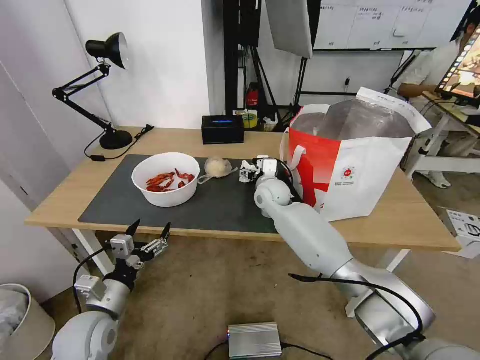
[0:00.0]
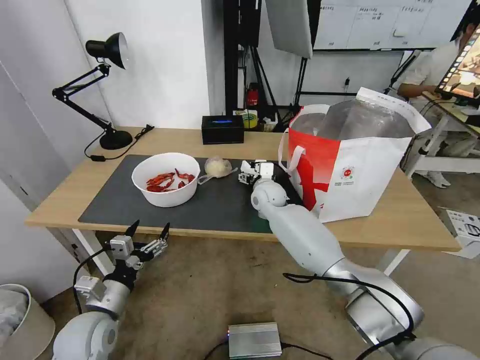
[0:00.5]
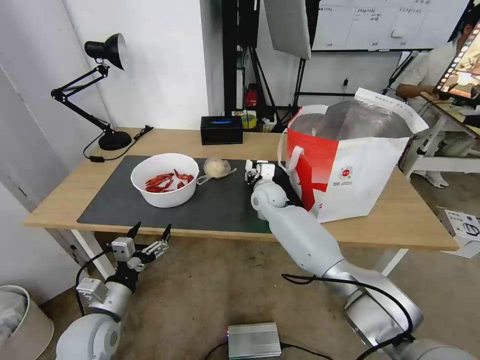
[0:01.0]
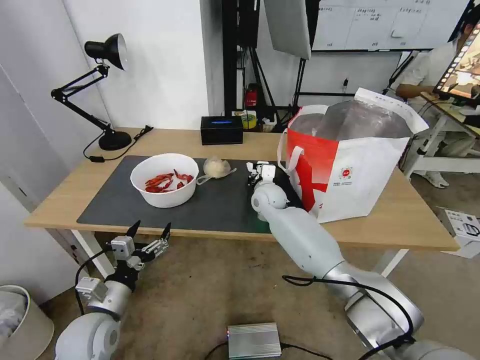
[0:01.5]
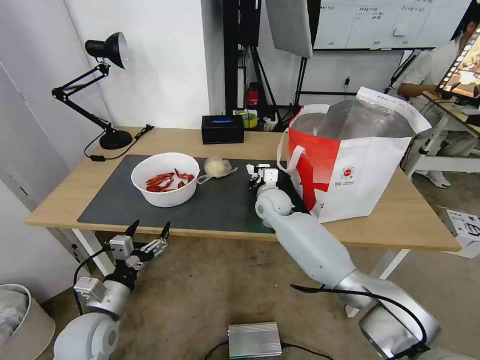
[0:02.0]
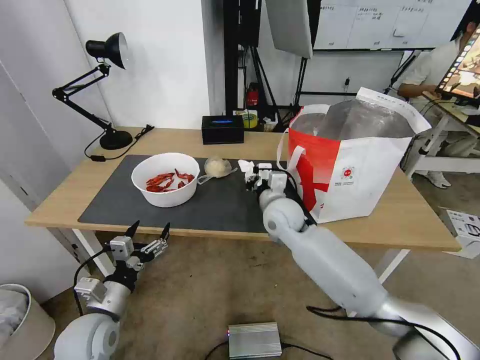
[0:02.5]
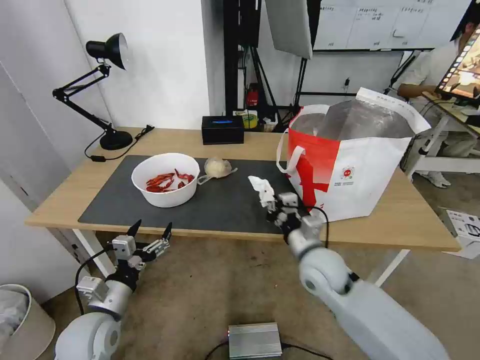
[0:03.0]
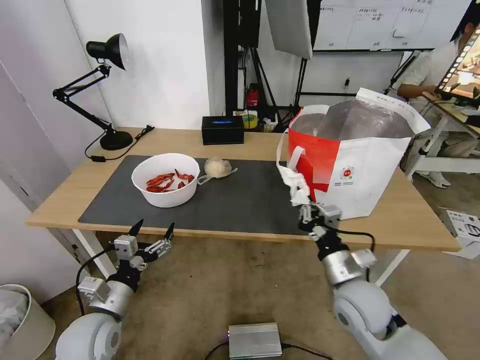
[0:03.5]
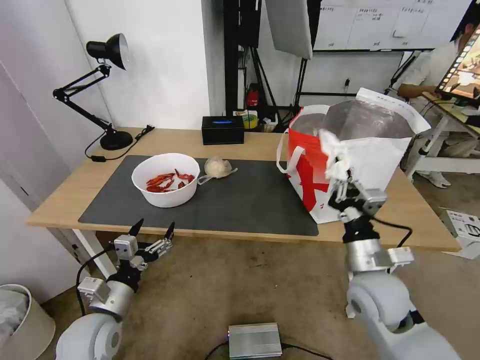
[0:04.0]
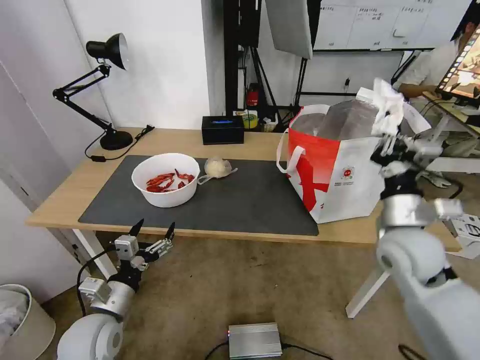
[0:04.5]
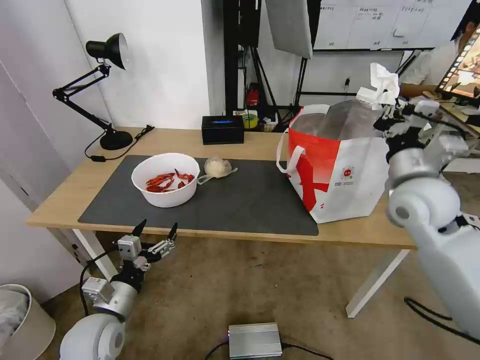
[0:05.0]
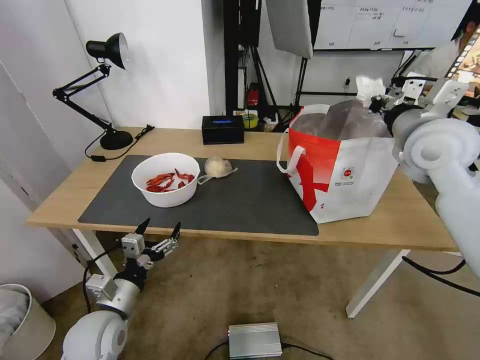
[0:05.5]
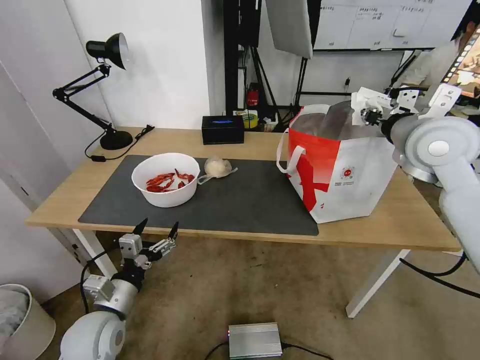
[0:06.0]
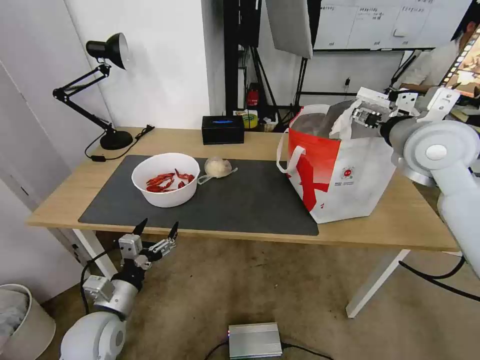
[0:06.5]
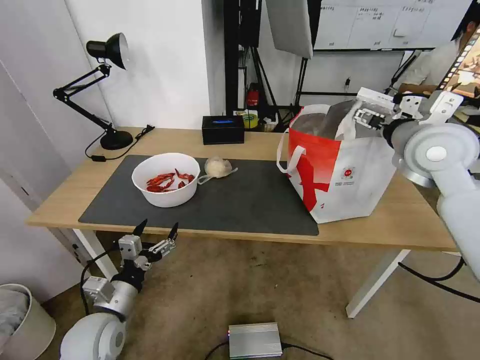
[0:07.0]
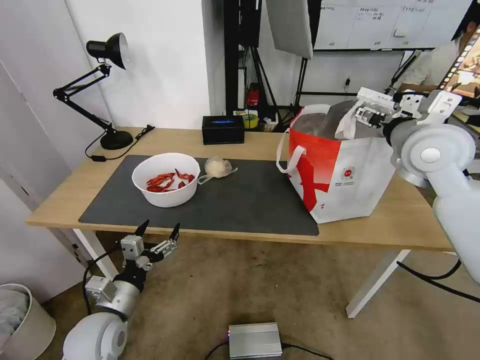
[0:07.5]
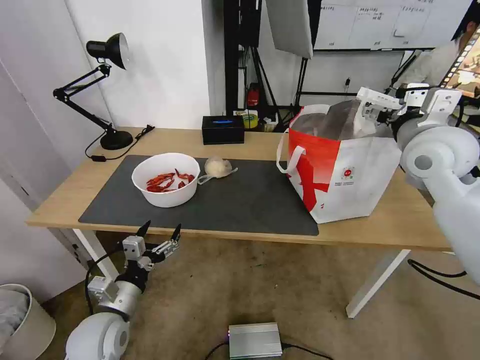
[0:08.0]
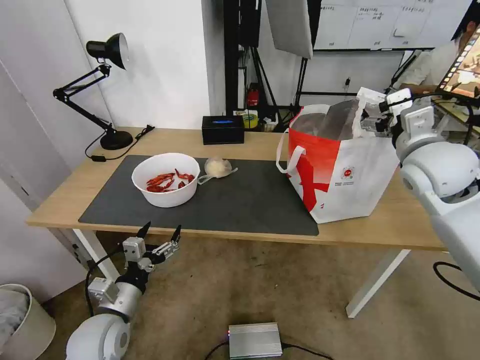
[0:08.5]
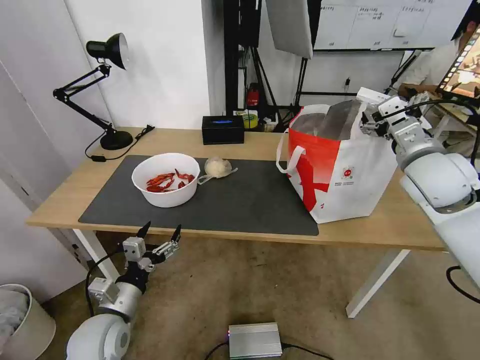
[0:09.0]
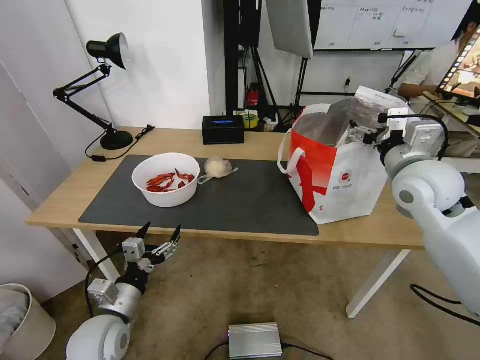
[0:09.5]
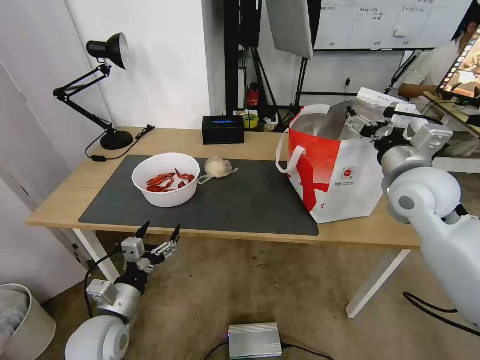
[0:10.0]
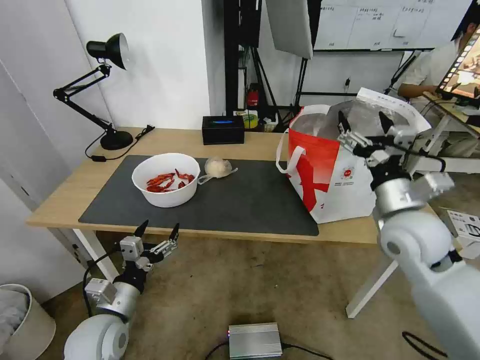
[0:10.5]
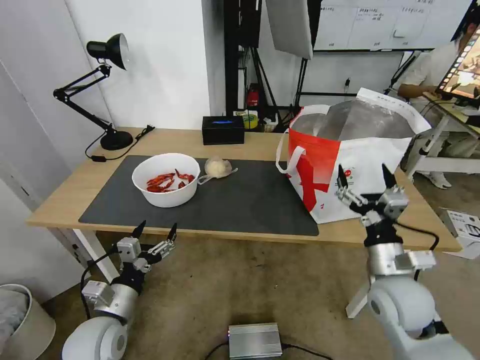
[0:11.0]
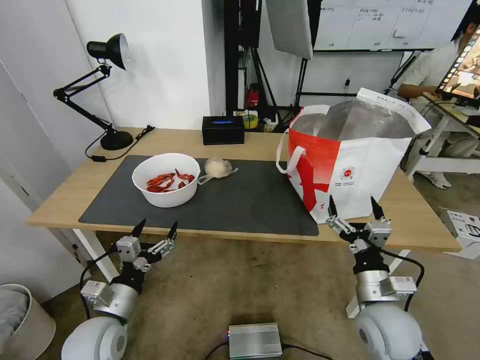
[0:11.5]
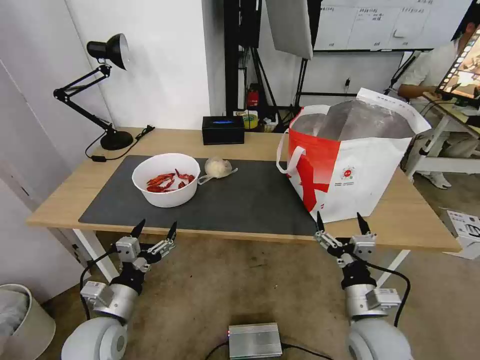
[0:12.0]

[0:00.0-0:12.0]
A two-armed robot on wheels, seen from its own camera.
Task of the whole recording: Pick up the trash from the table and place it into the takeout bag.
0:00.0 to 0:02.0: The right gripper closes.
0:02.0 to 0:04.0: The right gripper heads backward and to the right, covering roughly 30 cm.
0:04.0 to 0:06.0: The right gripper goes roughly 30 cm upward and forward.
0:06.0 to 0:08.0: The right gripper opens.
0:08.0 to 0:10.0: The right gripper shifts roughly 5 cm downward.
0:10.0 to 0:12.0: The right gripper goes about 30 cm downward and backward.

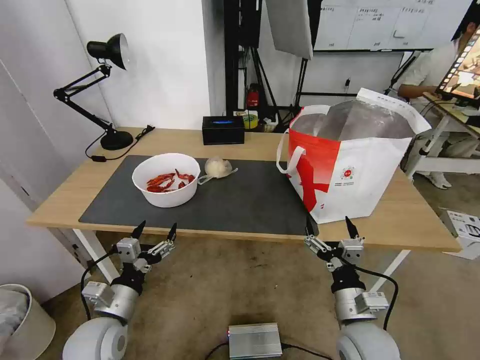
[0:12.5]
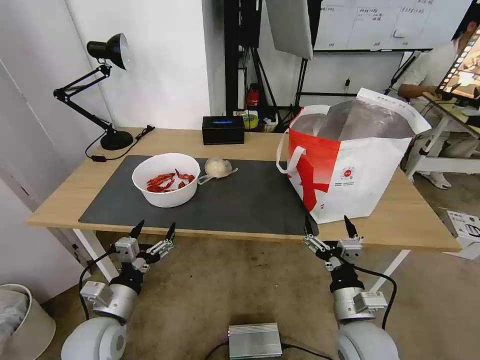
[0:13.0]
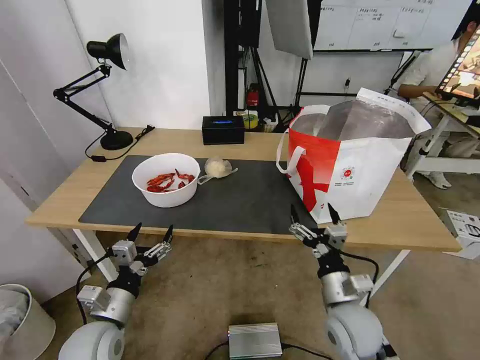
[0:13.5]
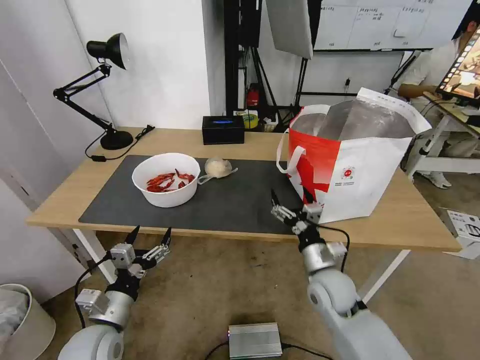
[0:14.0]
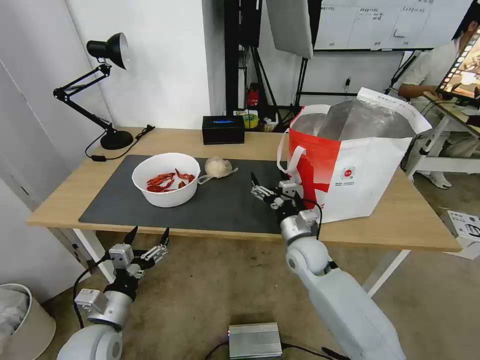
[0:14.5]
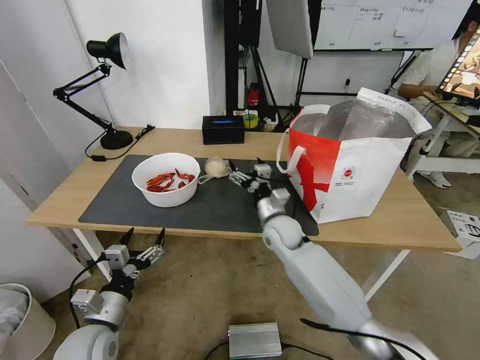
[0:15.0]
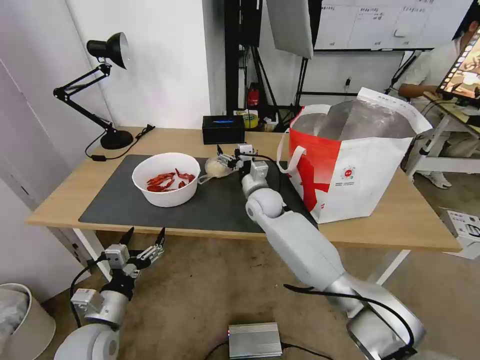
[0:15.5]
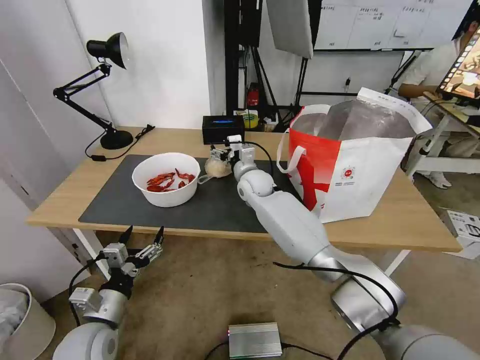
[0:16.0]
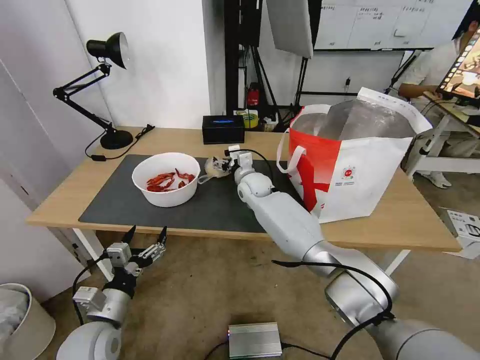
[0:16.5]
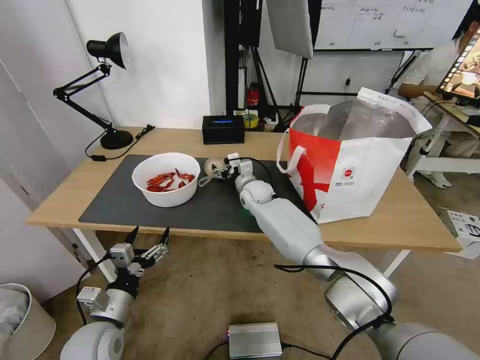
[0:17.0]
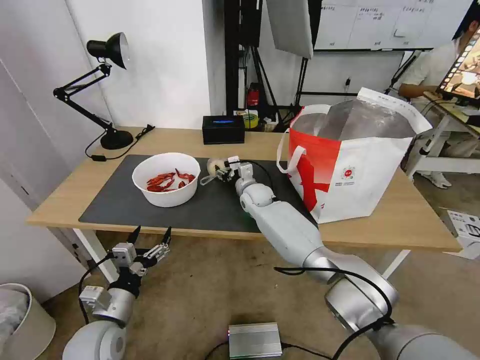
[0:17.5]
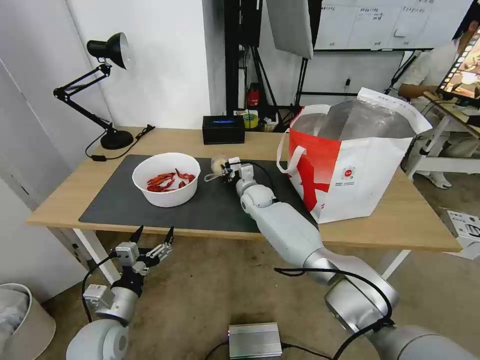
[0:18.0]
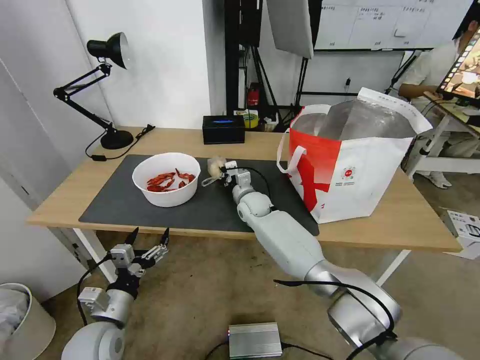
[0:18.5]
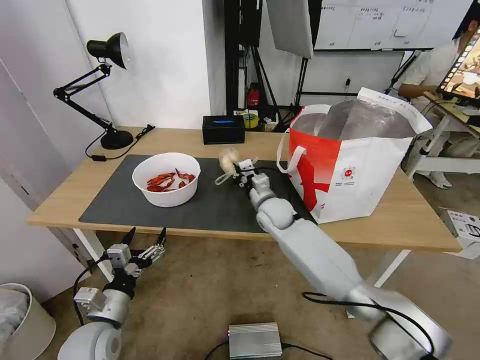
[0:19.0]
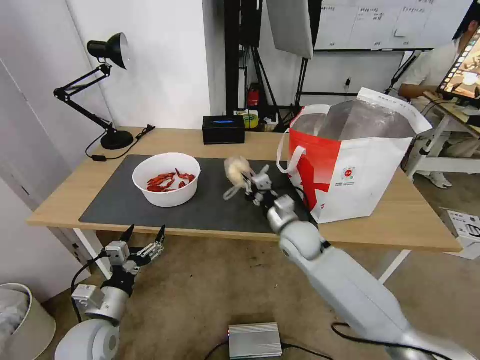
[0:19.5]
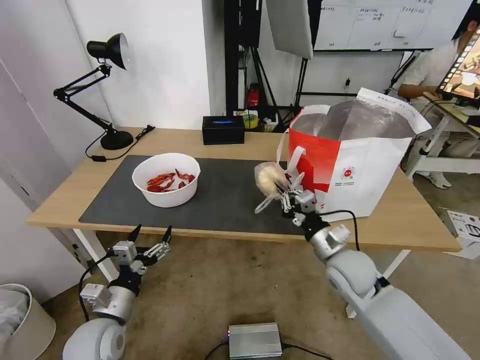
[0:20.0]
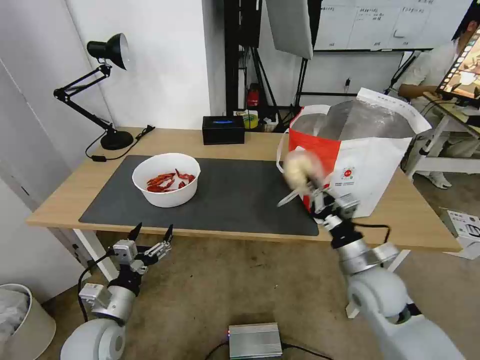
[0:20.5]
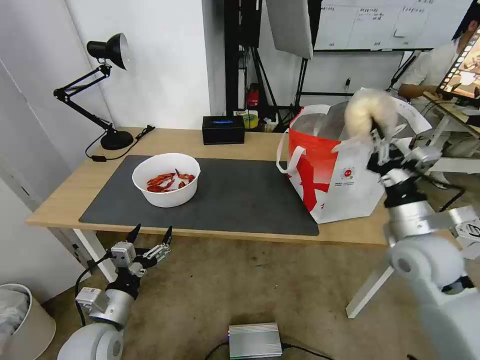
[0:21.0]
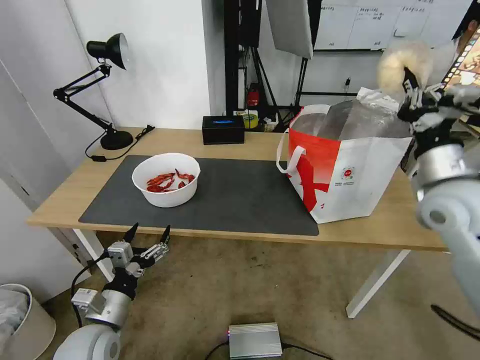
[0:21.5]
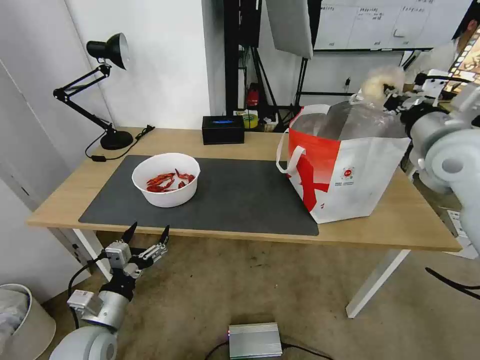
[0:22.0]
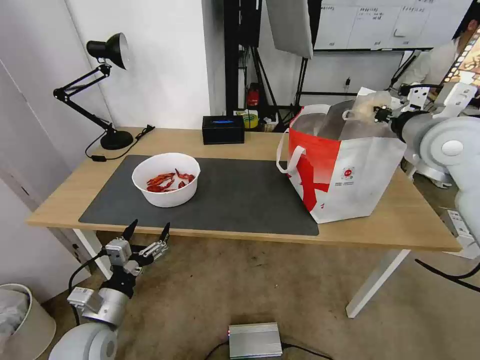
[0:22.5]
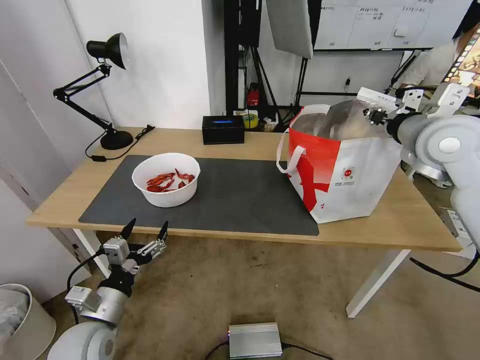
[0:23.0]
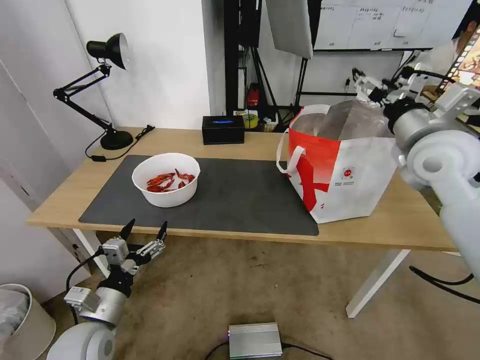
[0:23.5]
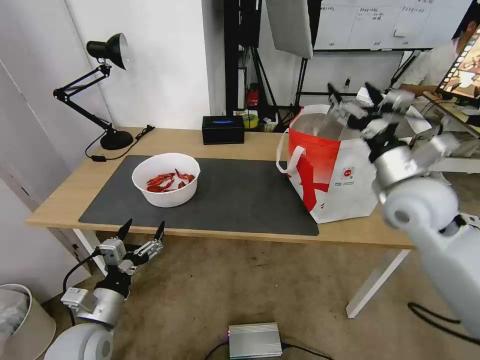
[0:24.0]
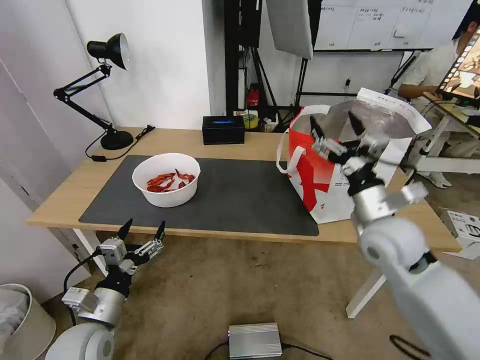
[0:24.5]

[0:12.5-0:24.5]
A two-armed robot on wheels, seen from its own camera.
Task of the whole recording: Pick up the trash from the table and place it into the takeout bag.
0:12.5 to 0:14.5: The right gripper goes about 20 cm forward.
0:14.5 to 0:16.5: The right gripper is displaced forward and to the left by approximately 25 cm.
0:16.5 to 0:18.5: The right gripper ends up approximately 5 cm from where it was, and closes up.
0:18.5 to 0:20.5: The right gripper shifts some 35 cm backward and to the right.
0:20.5 to 0:22.5: The right gripper shifts roughly 30 cm upward and forward.
0:22.5 to 0:24.5: The right gripper travels downward, backward and to the left by some 20 cm, and opens up.

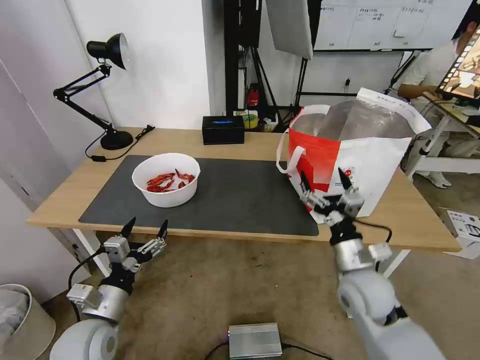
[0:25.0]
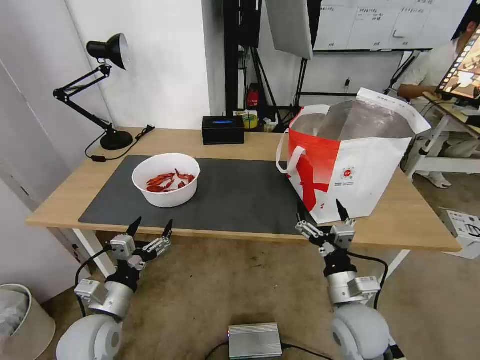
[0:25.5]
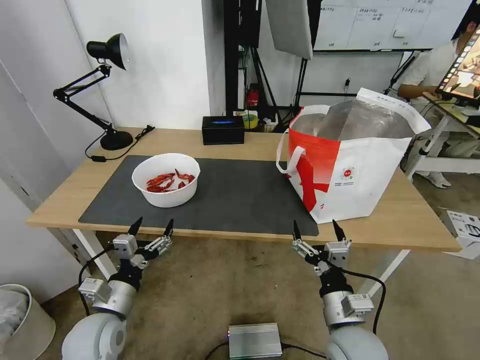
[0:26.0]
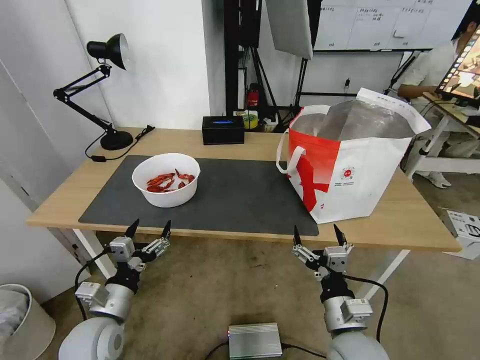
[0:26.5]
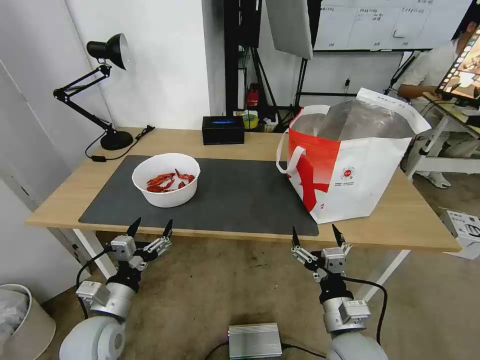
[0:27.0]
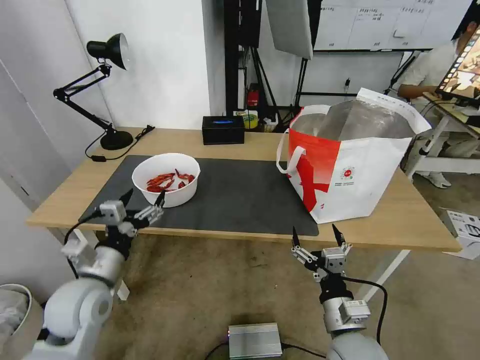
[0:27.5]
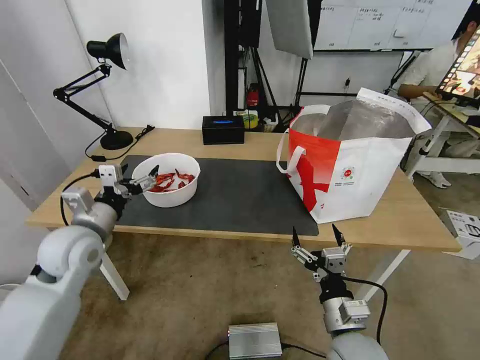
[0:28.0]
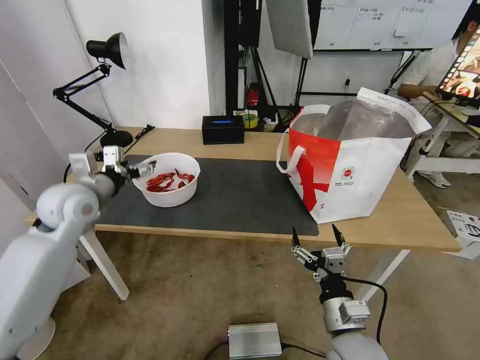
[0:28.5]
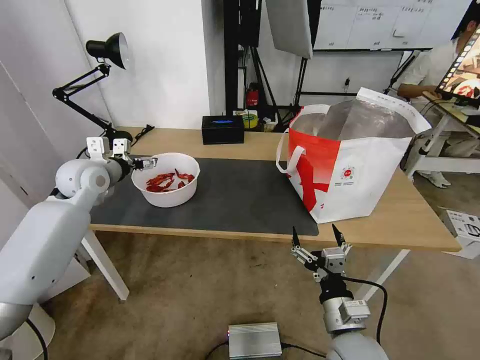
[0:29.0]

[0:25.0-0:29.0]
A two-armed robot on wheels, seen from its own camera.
Task of the whole recording: Pick up the trash from the table and place it into the takeout bag.
0:25.0 to 0:27.0: The right gripper heads backward, covering some 10 cm.
0:27.0 to 0:29.0: The left gripper moves forward and upward, about 30 cm.
